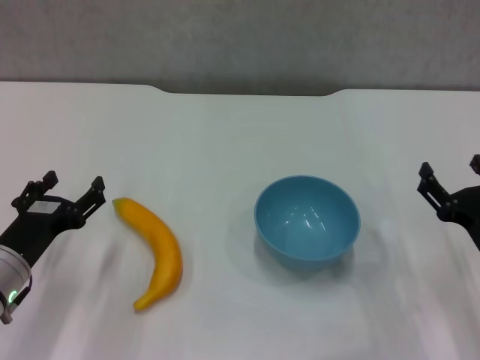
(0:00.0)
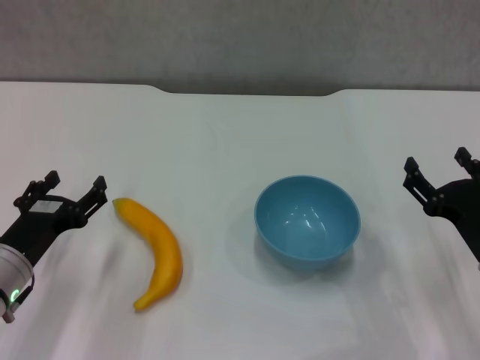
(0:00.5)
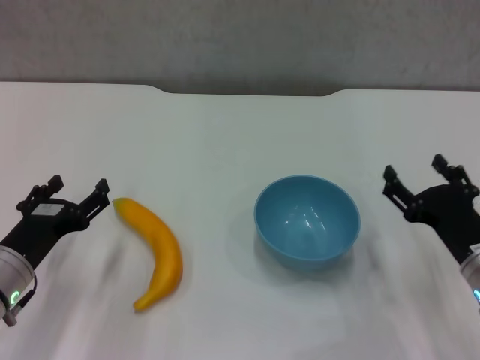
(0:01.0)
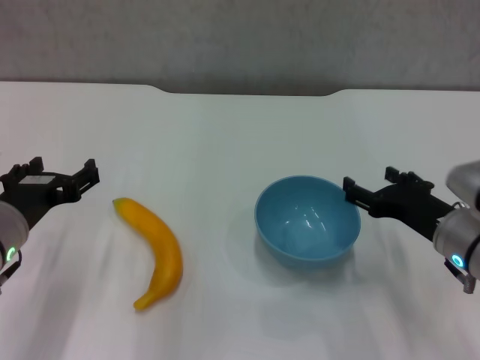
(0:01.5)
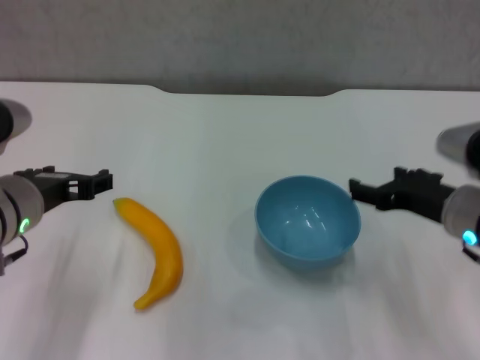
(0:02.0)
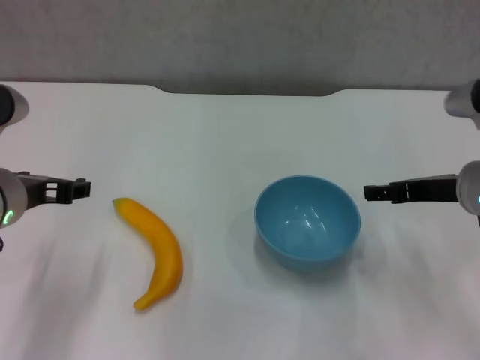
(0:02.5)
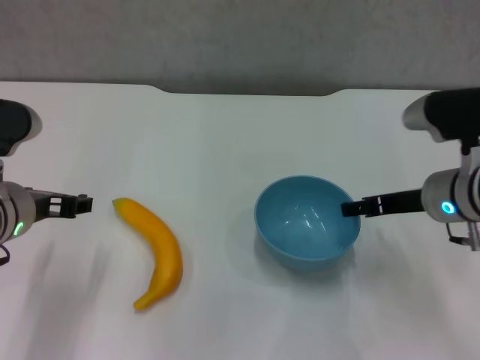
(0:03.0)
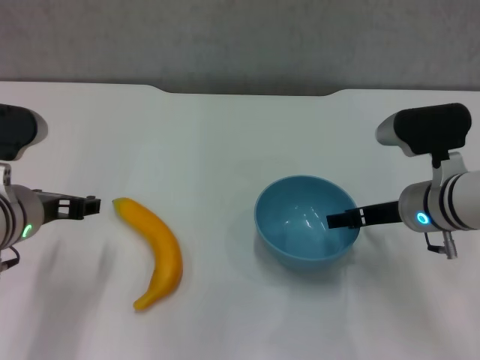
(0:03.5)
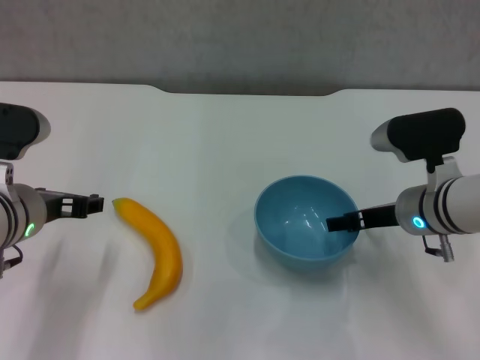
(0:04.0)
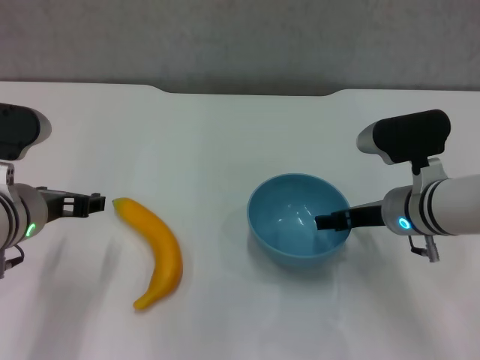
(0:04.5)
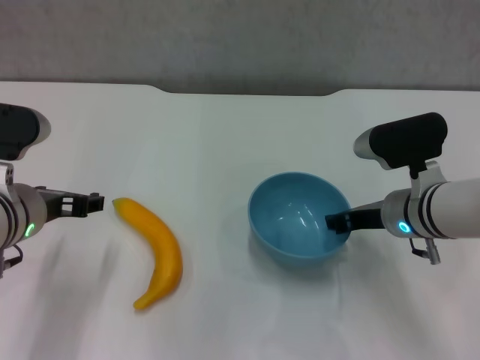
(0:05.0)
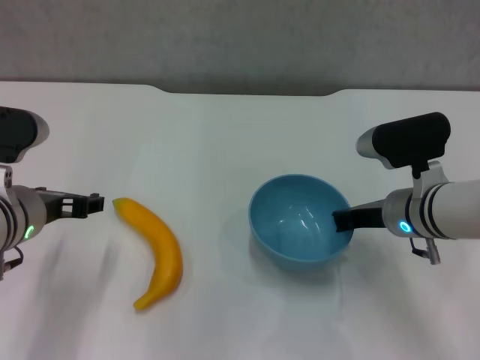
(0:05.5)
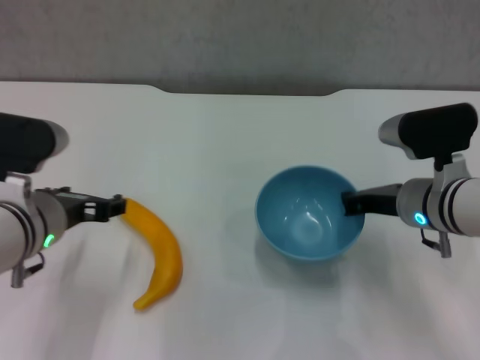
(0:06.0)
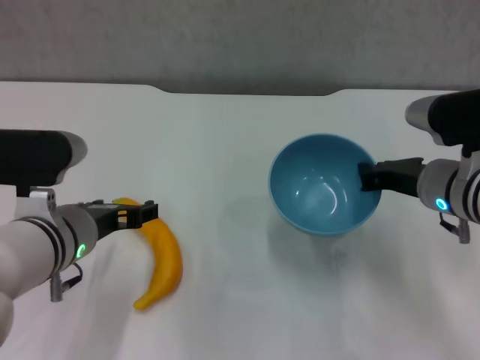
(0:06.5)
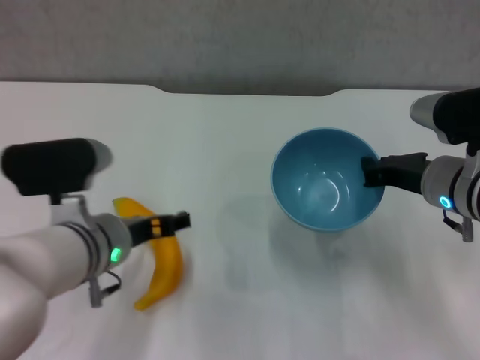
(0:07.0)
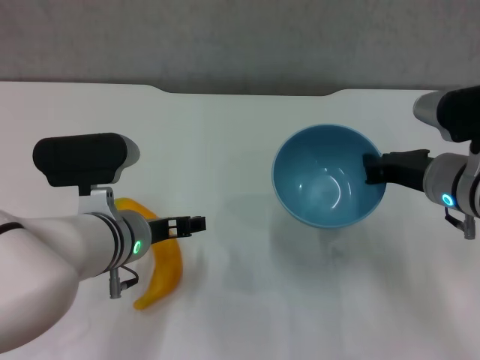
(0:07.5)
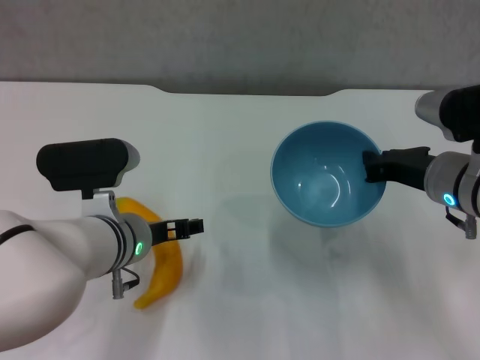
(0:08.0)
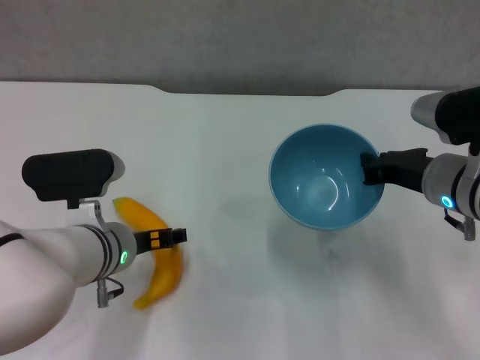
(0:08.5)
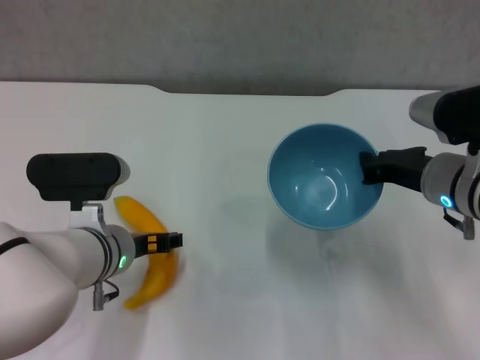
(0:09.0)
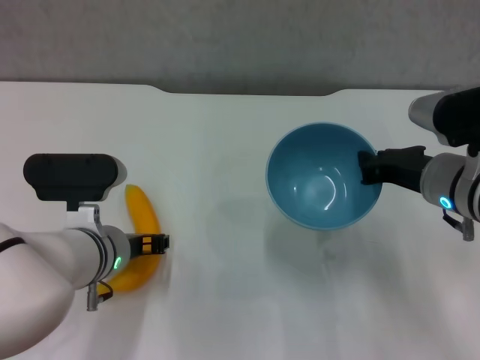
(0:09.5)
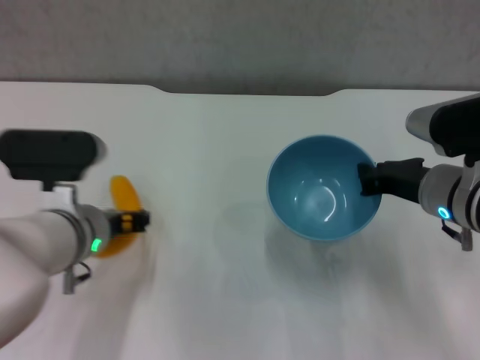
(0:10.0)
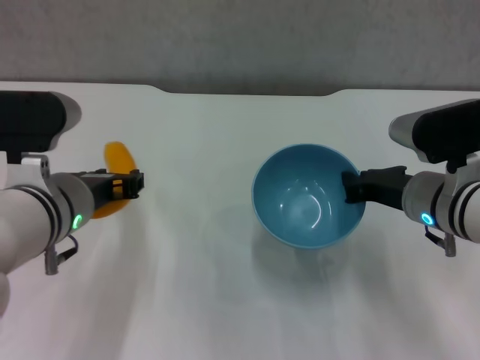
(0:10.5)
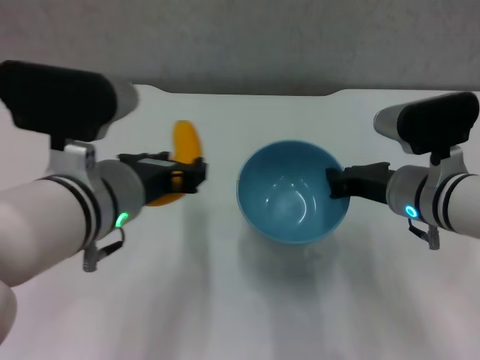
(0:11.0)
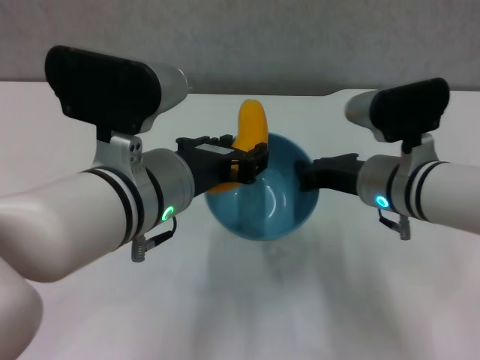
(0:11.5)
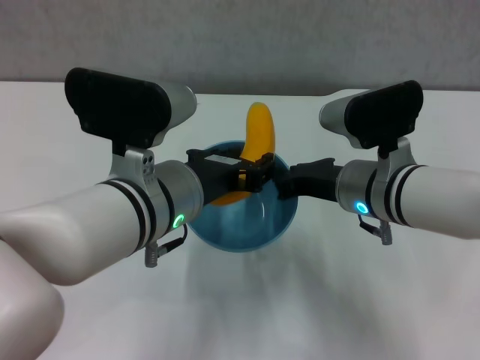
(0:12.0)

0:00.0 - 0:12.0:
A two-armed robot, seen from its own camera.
Step, 0:00.0 - 0:05.0: Grasp the blue bowl with right gripper.
Step, 0:05.5 - 0:06.0: Lift the blue bowl with right gripper.
Step, 0:06.5 - 0:09.0: Grasp the banana with left gripper.
0:00.0 - 0:02.0: The right gripper travels upward and to the left by roughly 10 cm. The left gripper goes some 10 cm upward.
0:02.0 - 0:04.0: The right gripper is displaced forward by approximately 5 cm.
0:04.0 - 0:06.0: The right gripper closes its fingers.
0:06.0 - 0:08.0: The left gripper moves to the right, about 5 cm.
0:08.0 - 0:10.0: The left gripper closes.
0:10.0 - 0:12.0: The left gripper is displaced to the right and upward by approximately 10 cm, while the right gripper moves to the left, approximately 10 cm.

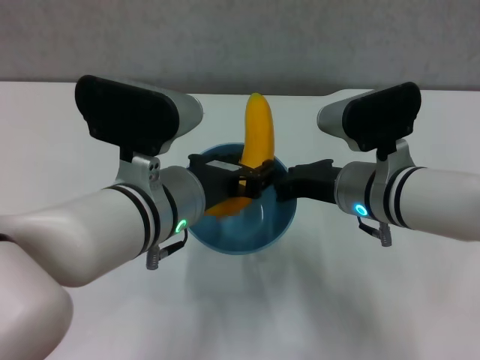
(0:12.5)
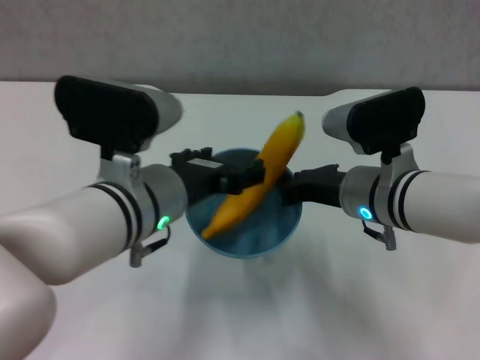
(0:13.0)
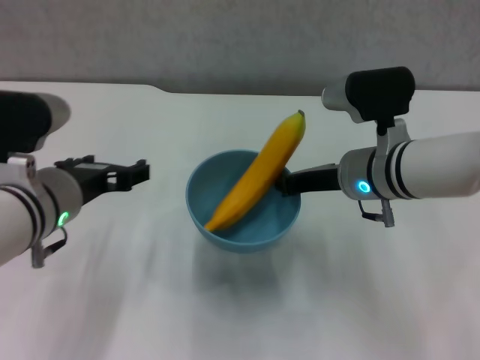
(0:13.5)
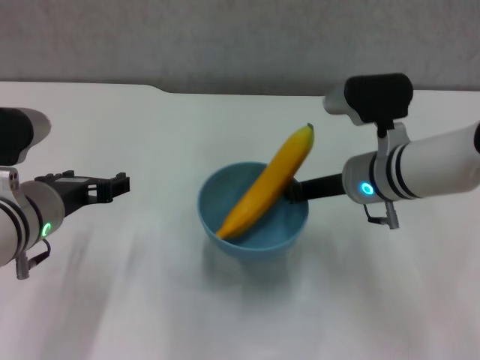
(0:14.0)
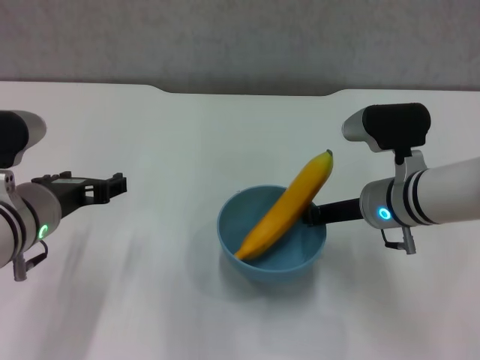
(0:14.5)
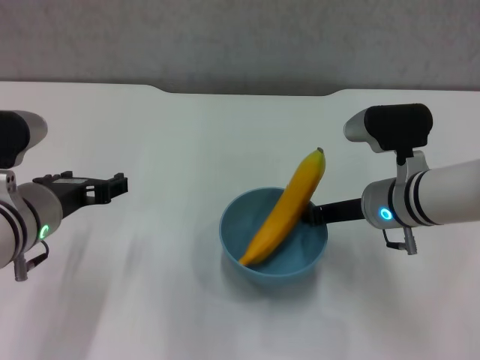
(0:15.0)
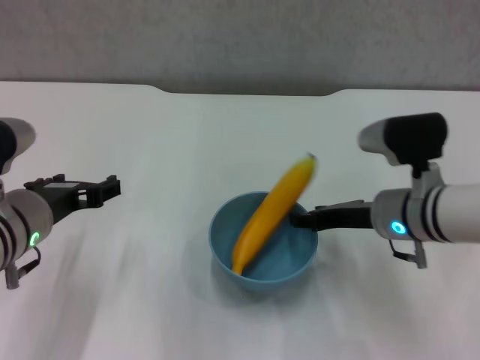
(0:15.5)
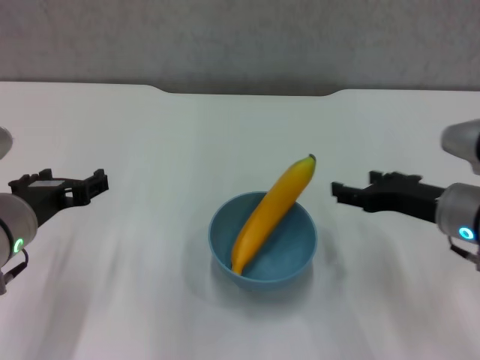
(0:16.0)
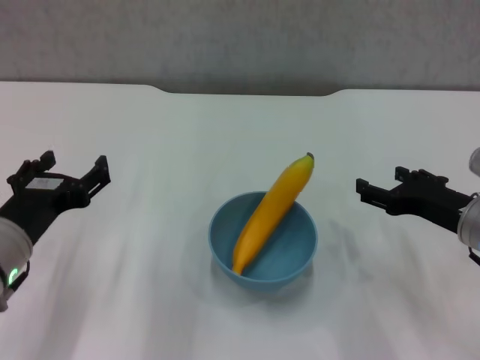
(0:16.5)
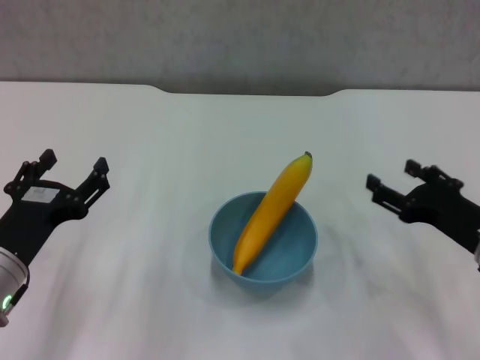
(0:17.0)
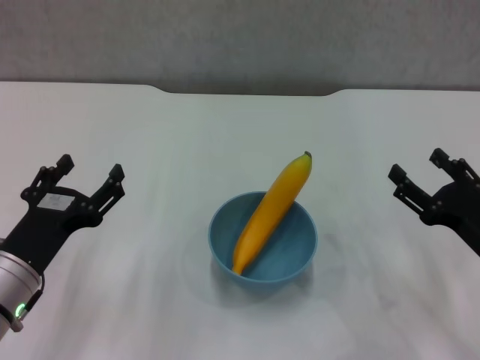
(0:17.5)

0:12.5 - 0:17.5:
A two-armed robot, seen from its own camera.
Step, 0:13.5 - 0:15.5: Place the bowl on the table with right gripper.
0:12.5 - 0:15.0: The left gripper heads to the left, covering approximately 10 cm, and opens its fingers. The right gripper ends up some 5 cm from where it was.
0:15.0 - 0:17.5: The left gripper heads downward and backward, covering some 10 cm; the right gripper heads to the right and backward, covering approximately 15 cm, and opens its fingers.
